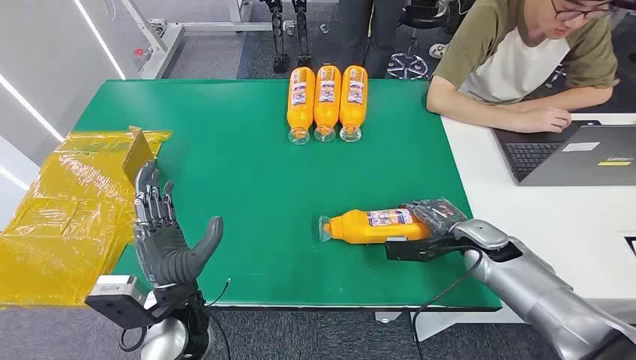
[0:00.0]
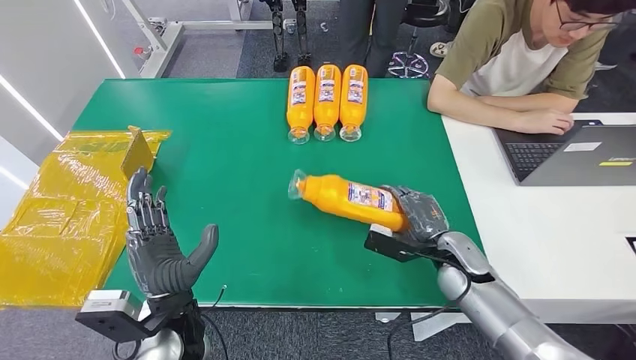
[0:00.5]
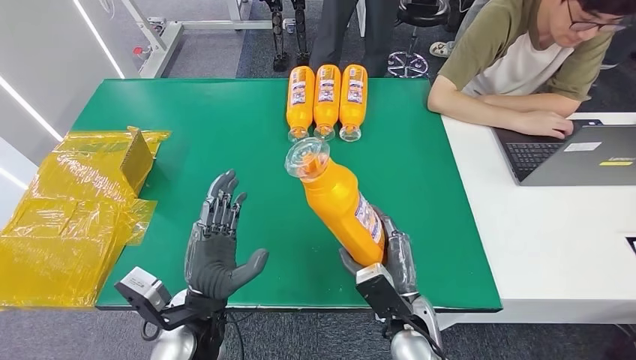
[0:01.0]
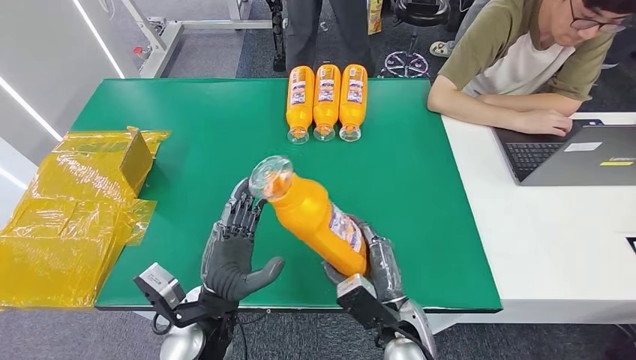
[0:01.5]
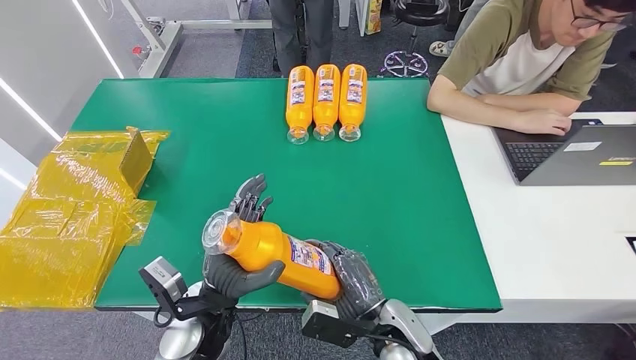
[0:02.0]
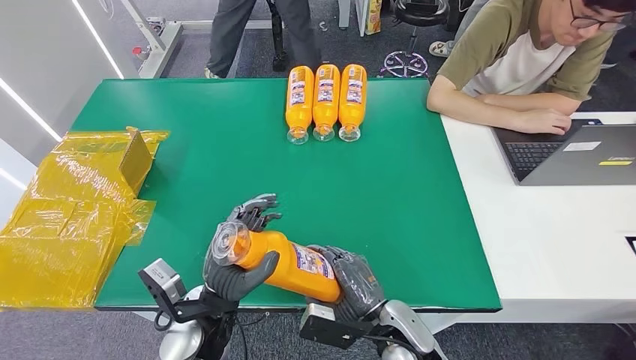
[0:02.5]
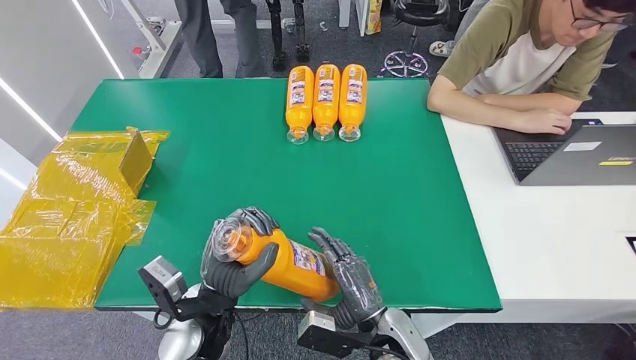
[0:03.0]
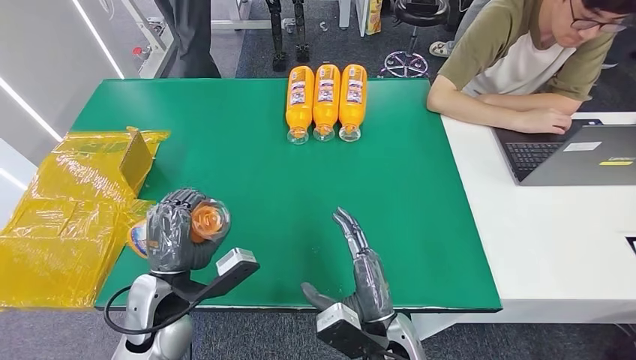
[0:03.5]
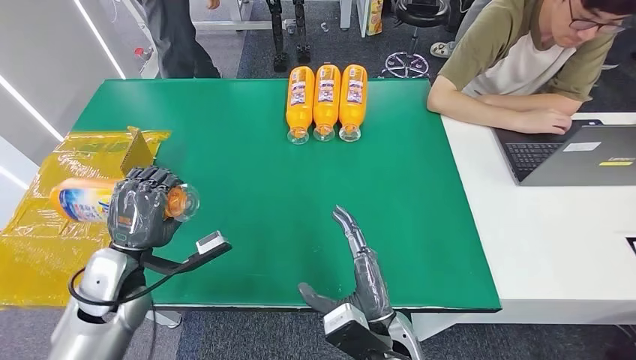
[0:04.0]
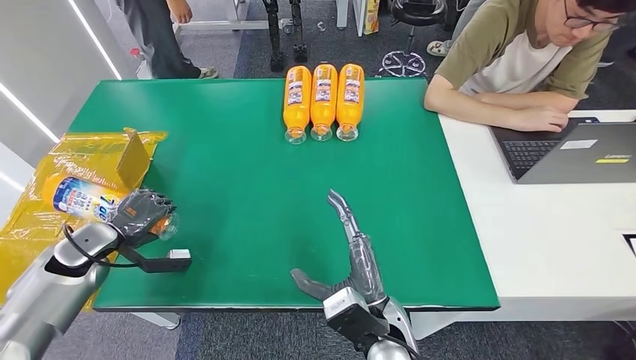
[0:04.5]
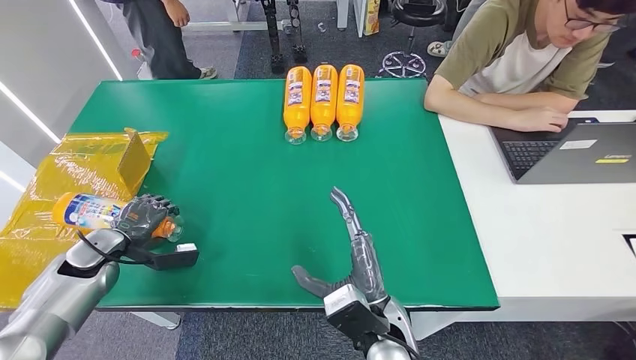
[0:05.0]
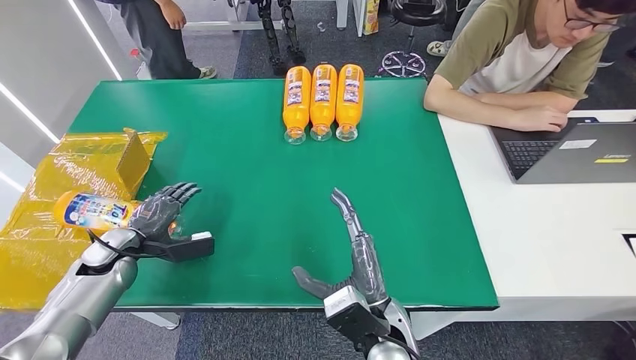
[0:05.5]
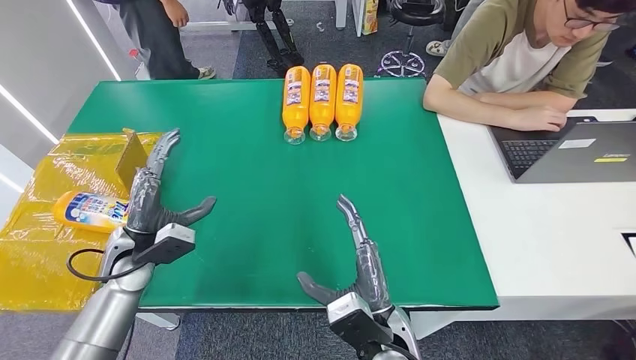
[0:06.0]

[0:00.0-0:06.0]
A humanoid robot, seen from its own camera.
Step, 0:00.0 to 0:01.5: Pick up the bottle from the table.
Step, 0:02.0 to 0:05.5: Turn the bottle to the front side.
0:02.0 to 0:04.0: The left hand shifts approximately 20 cm to the left and forward.
